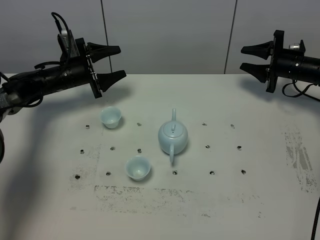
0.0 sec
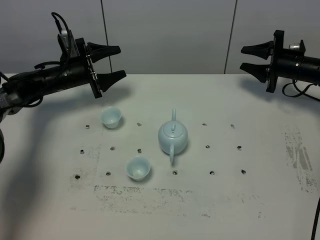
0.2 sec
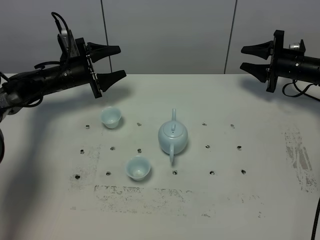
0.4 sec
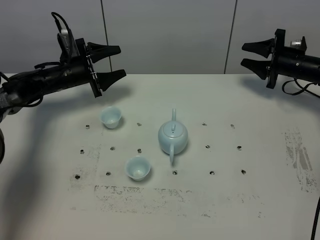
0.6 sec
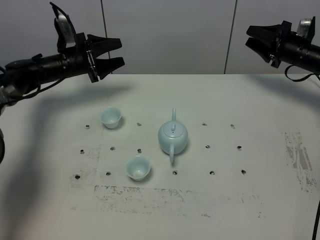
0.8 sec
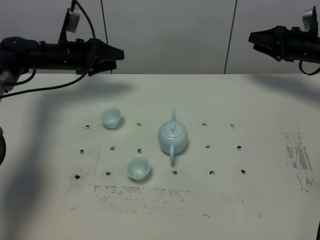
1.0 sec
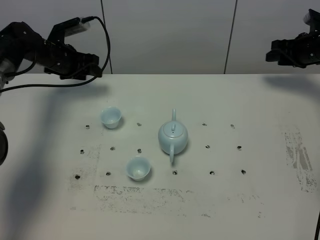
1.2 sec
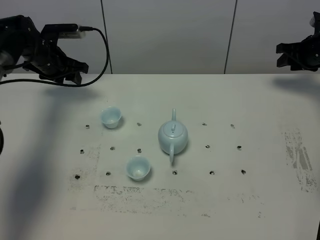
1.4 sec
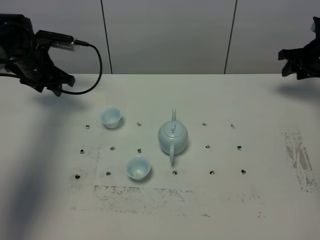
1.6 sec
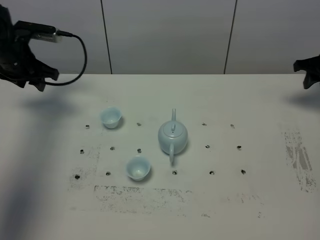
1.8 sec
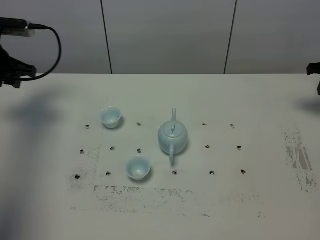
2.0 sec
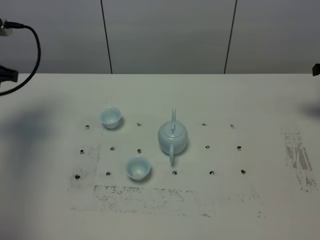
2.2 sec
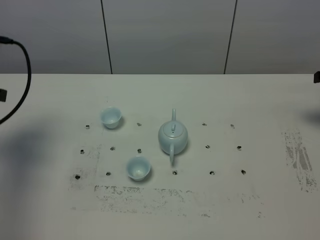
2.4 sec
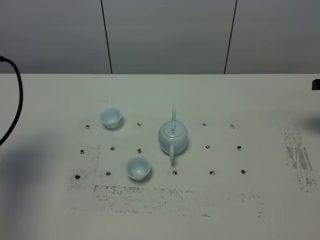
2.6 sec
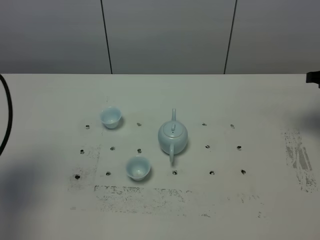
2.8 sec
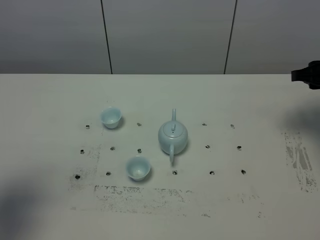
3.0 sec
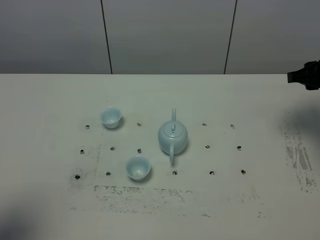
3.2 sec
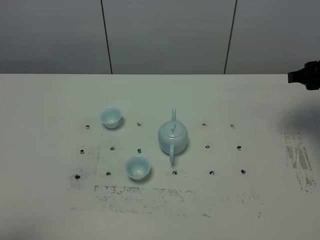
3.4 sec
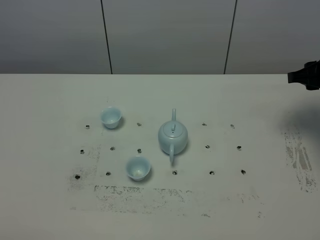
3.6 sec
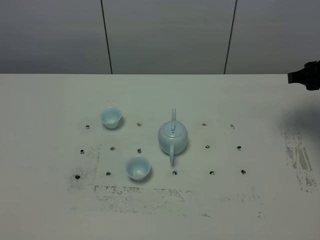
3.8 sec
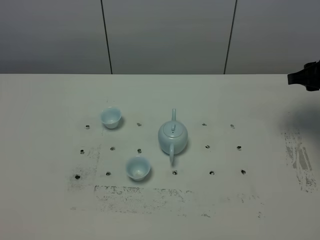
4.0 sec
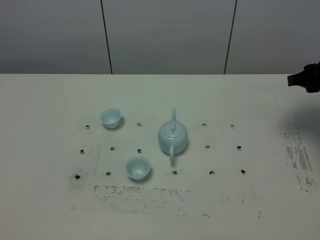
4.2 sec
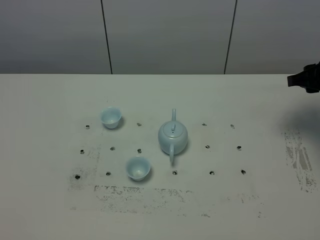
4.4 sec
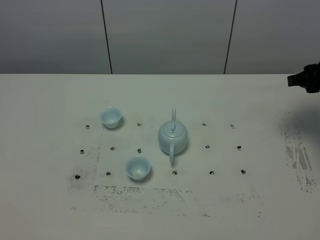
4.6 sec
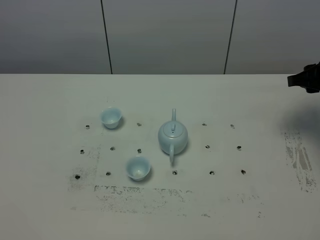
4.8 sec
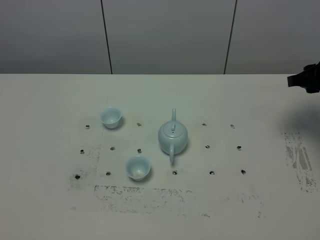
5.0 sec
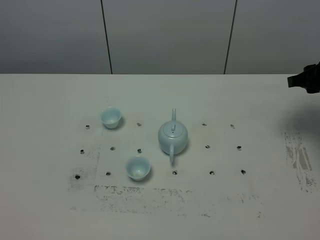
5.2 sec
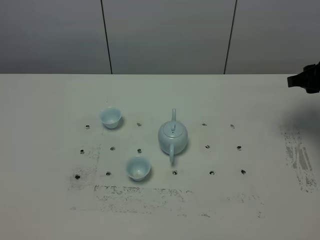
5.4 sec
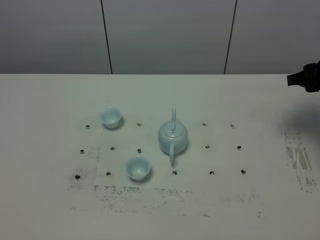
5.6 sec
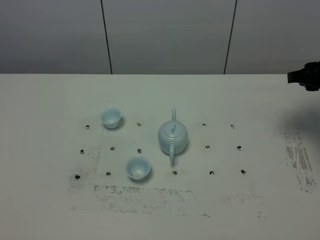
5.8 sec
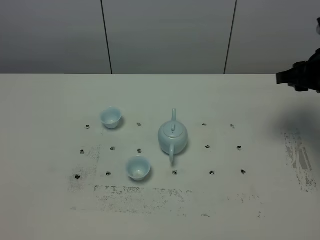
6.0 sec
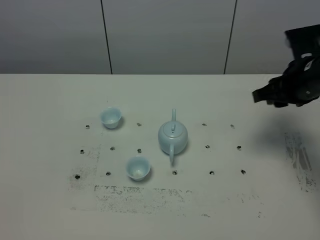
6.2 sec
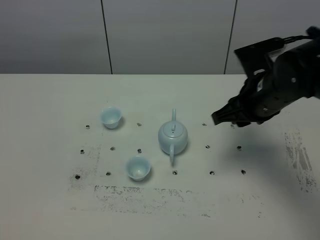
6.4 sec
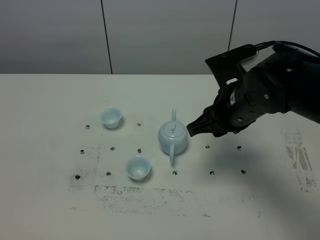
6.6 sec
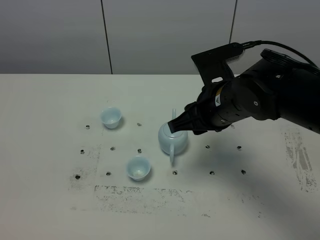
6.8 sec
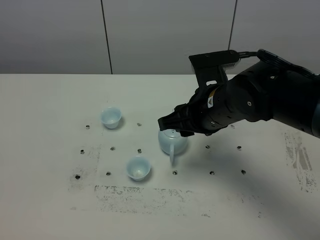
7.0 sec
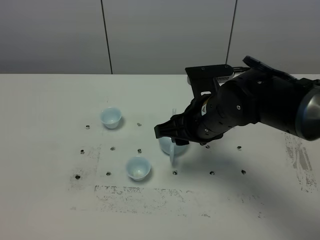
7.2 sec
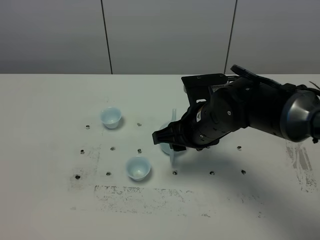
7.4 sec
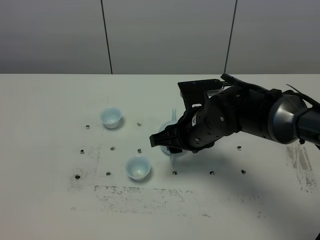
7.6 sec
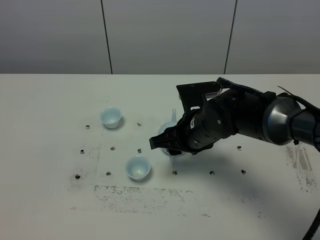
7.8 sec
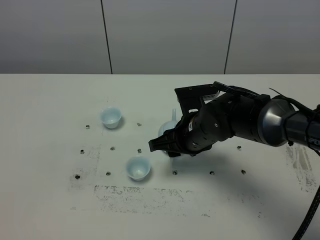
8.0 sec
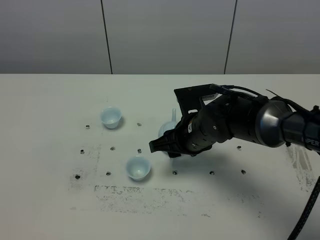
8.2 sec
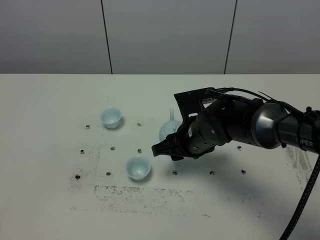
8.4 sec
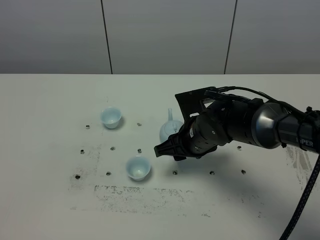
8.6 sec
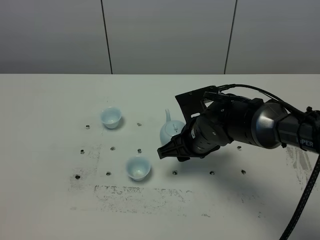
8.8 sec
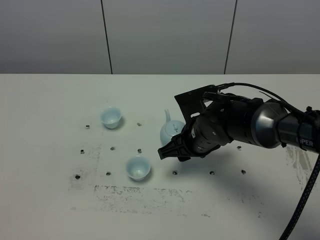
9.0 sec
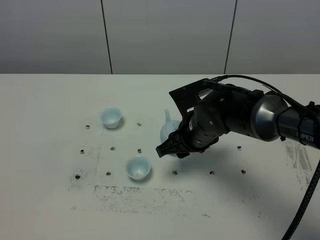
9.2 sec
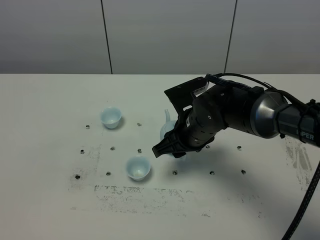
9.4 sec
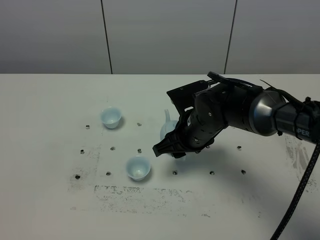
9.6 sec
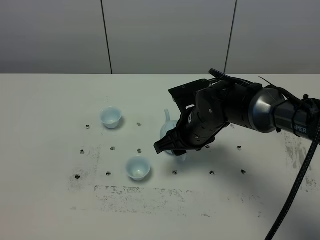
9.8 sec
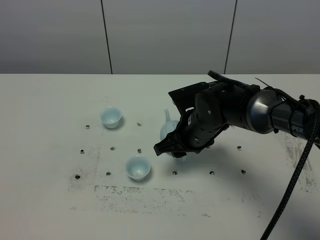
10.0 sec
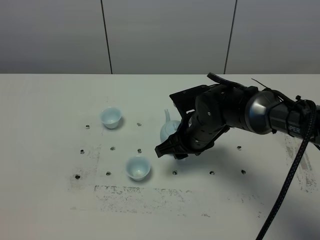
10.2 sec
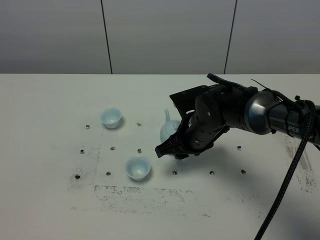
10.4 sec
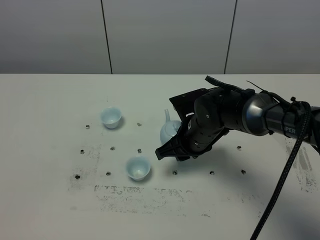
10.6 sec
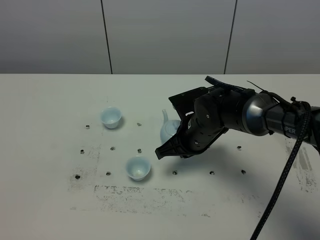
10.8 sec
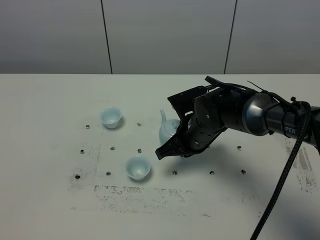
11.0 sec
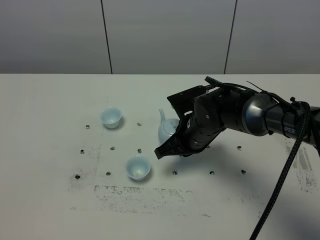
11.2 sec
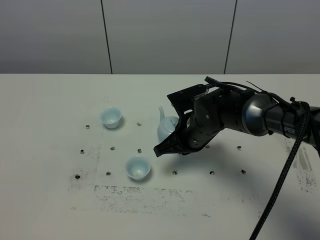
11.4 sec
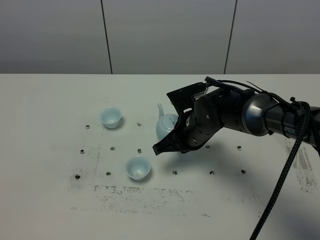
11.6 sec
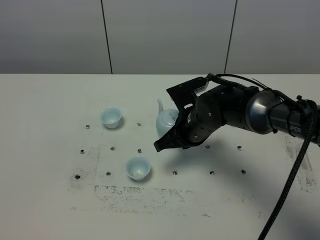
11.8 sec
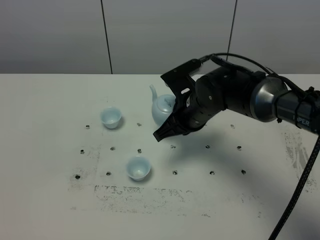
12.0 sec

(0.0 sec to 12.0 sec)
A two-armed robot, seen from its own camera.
Task of the whole recording: grasp the blue porcelain teapot and pour the tea into the two blue porcelain teacups one by one, put the blue porcelain teapot back in its original place.
Step, 0.0 sec - 11.8 sec: Pick up the teapot with the right gripper.
0.0 sec - 1.6 sec: The left gripper shifts some 10 cm upward and to the left, and closes its fingers, while the right gripper is displaced upward by about 5 cm.
1.6 sec - 3.0 sec: The left gripper is displaced backward and upward by roughly 40 cm, and closes. Meanwhile the right gripper is displaced backward and upward by some 15 cm.
3.0 sec - 4.4 sec: The left gripper heads backward and downward, covering approximately 20 cm.
6.0 sec - 7.6 sec: The right gripper heads to the left, covering about 20 cm.
7.6 sec - 10.4 sec: The grippers move only a little.
10.4 sec - 12.0 sec: The right gripper moves approximately 5 cm, and closes.

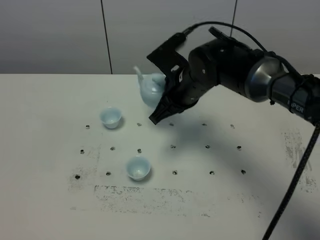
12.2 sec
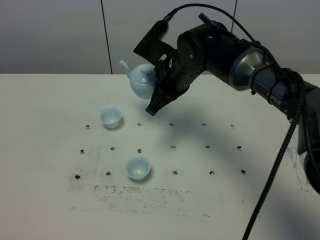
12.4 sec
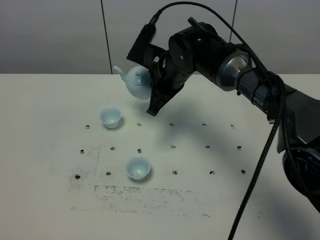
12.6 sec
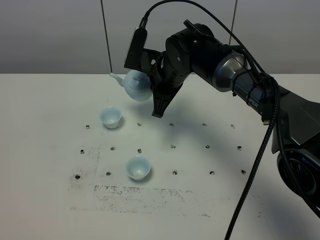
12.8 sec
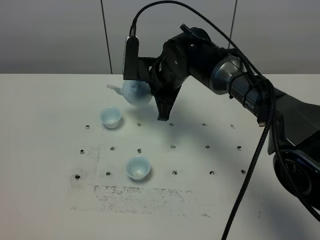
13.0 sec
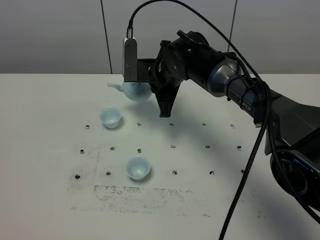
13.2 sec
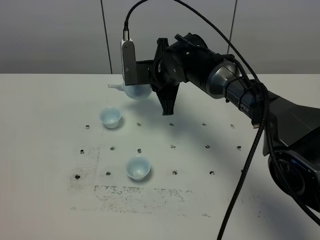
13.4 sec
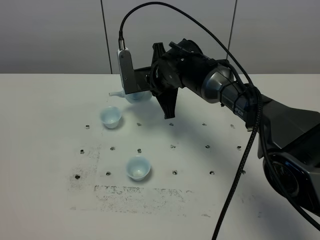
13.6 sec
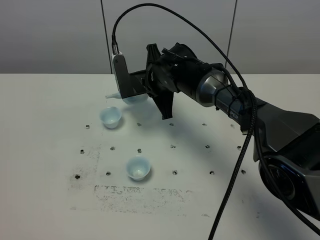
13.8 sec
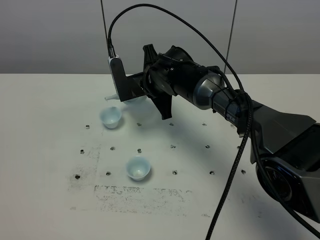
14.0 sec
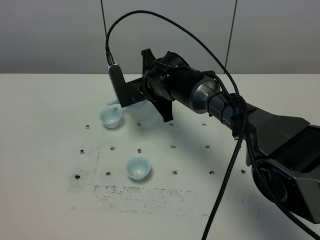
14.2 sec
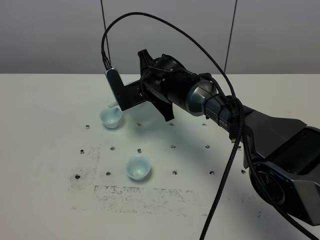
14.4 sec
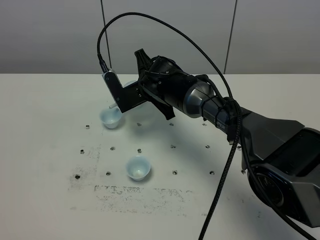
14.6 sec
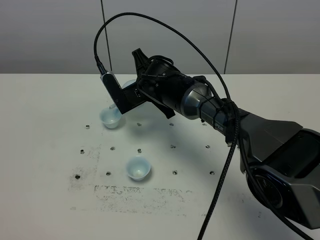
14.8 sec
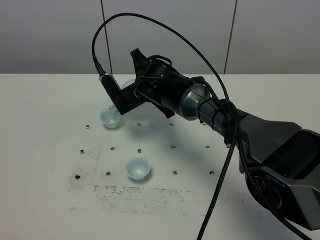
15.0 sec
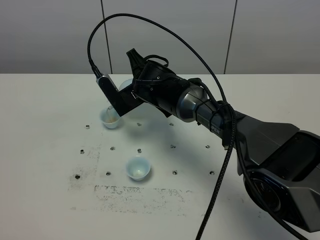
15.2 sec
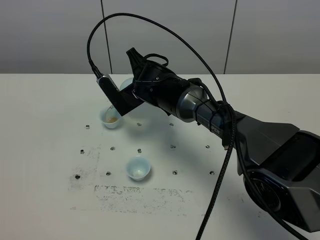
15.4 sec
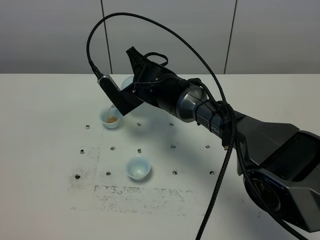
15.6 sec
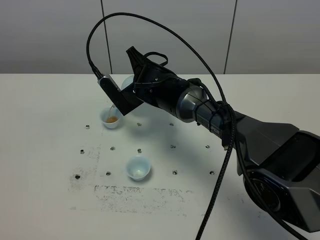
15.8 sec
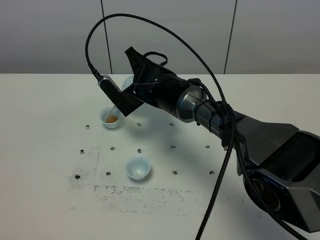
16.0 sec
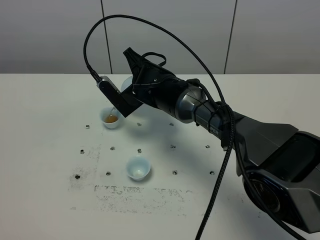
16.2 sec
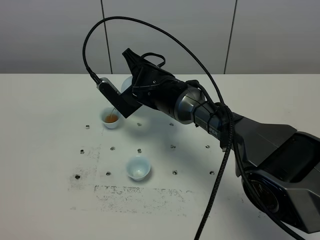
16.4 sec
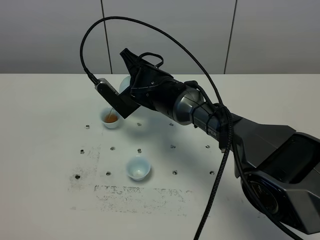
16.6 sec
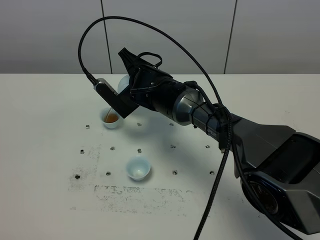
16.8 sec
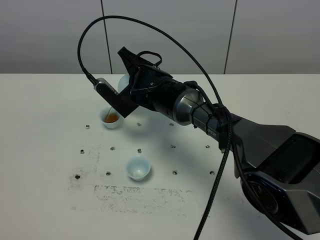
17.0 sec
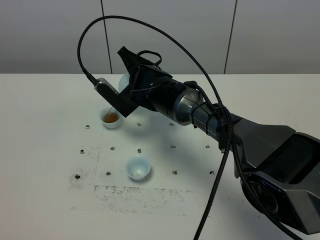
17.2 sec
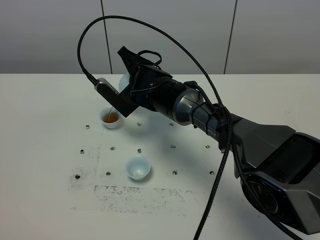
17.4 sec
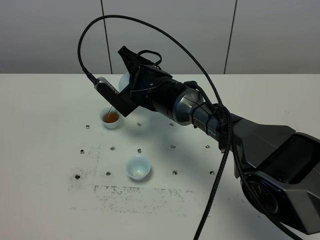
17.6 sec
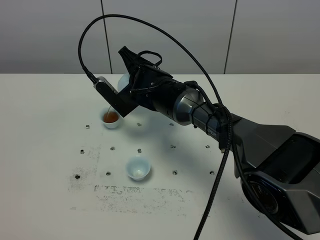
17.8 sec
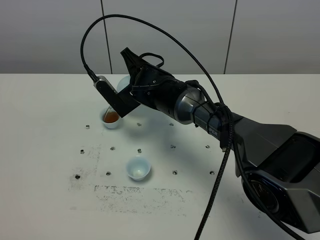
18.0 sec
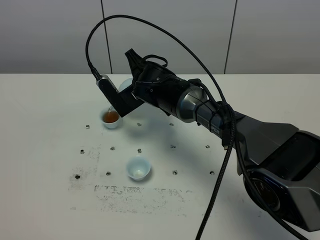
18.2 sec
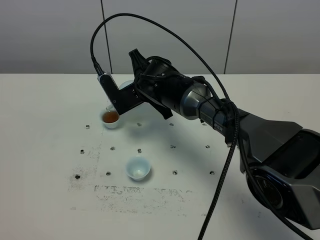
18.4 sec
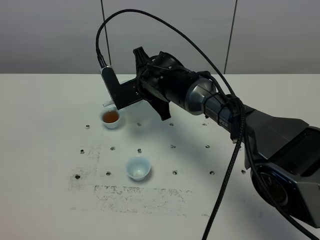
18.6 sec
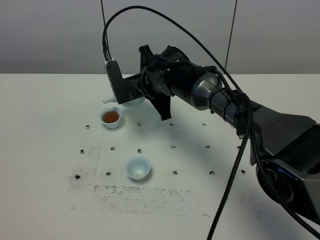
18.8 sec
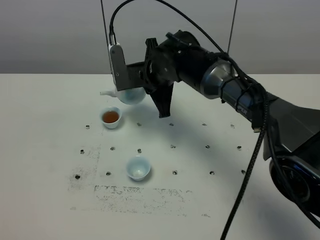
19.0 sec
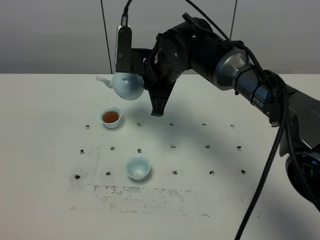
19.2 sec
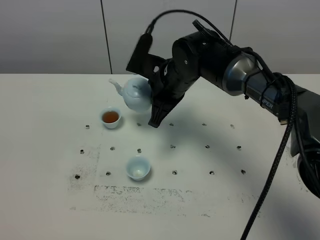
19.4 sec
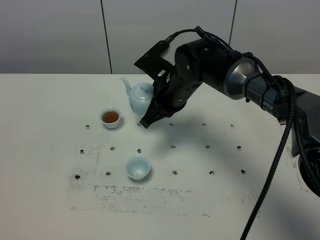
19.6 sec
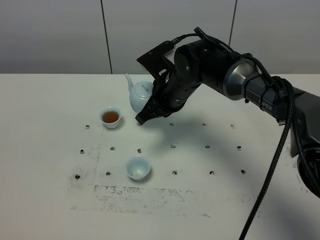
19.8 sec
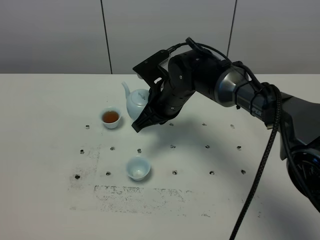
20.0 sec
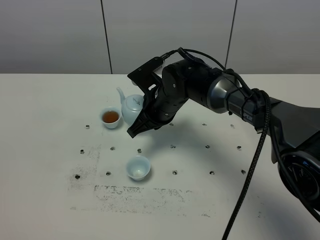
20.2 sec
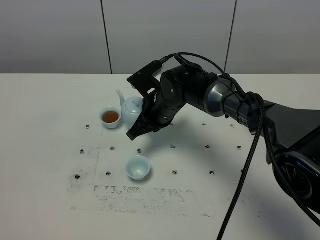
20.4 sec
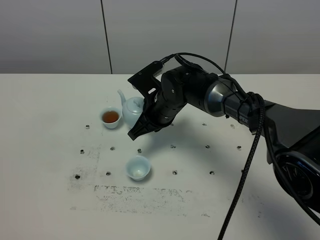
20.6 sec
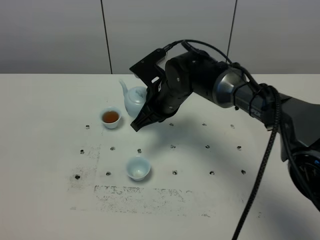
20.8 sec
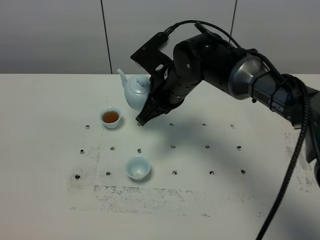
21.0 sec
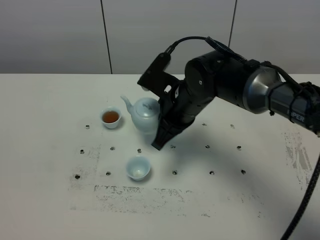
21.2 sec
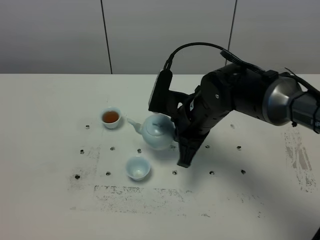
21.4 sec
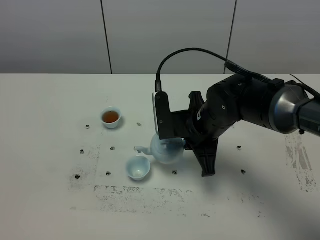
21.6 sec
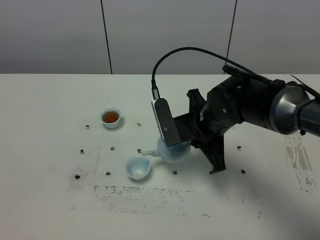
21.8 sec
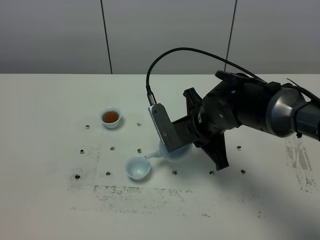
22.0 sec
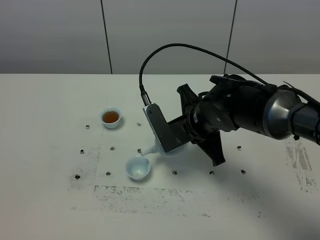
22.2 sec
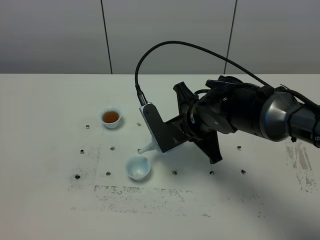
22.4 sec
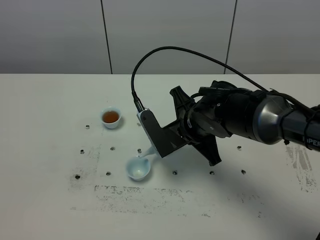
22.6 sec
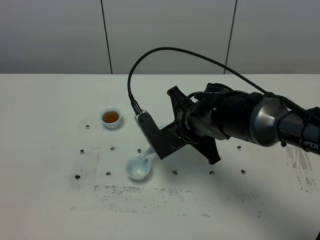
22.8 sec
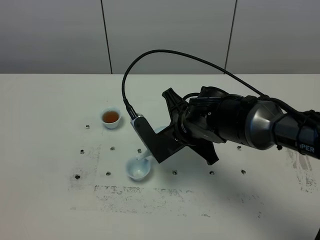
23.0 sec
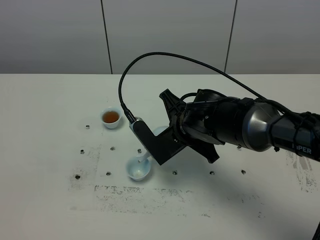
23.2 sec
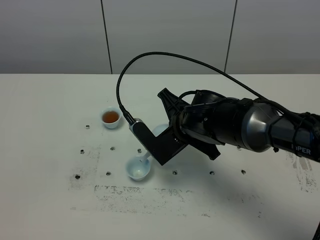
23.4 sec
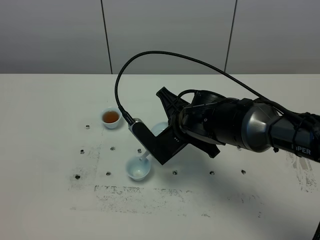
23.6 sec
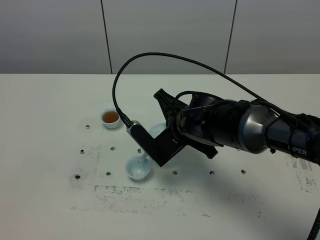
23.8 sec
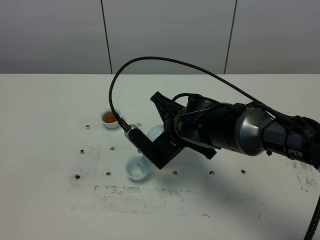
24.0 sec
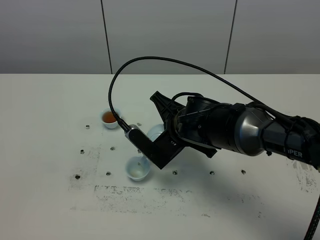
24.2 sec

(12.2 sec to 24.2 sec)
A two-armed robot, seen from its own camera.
Task of the whole recording: grasp the blue porcelain teapot and pour the tea into the two blue porcelain teacups one by one, put the blue porcelain teapot back in its original place.
12.2 sec - 13.8 sec: The right gripper shifts approximately 5 cm forward.
15.2 sec - 18.2 sec: The grippers move only a little.
18.2 sec - 19.8 sec: The right gripper heads to the right, covering approximately 5 cm.
19.8 sec - 21.2 sec: The right gripper ends up some 5 cm from where it was.
22.6 sec - 24.2 sec: There are only small adjustments of the grippers.
